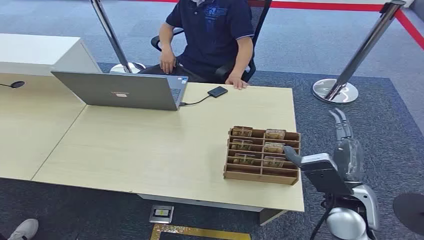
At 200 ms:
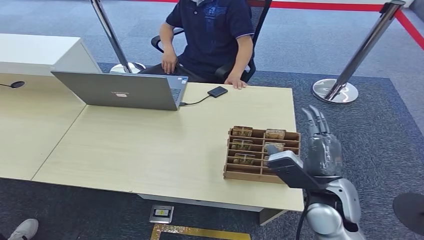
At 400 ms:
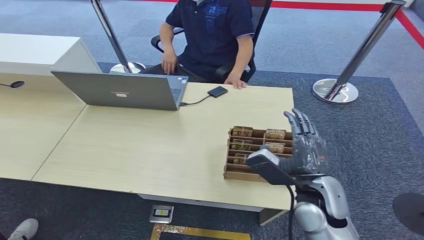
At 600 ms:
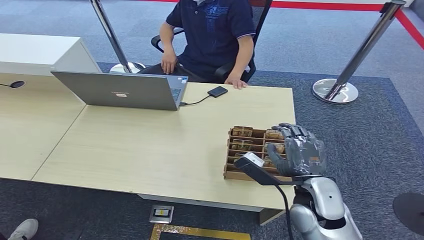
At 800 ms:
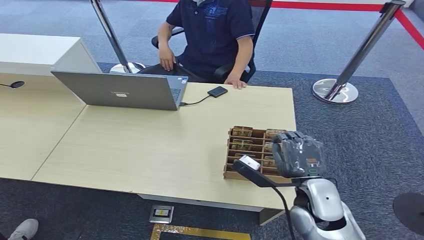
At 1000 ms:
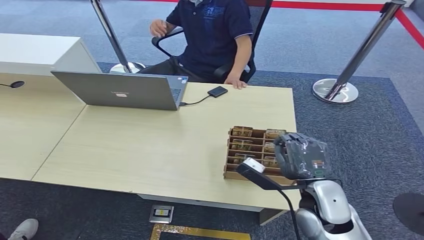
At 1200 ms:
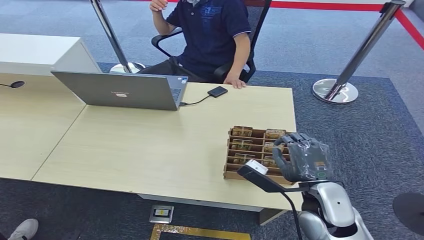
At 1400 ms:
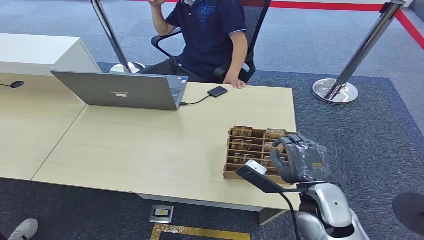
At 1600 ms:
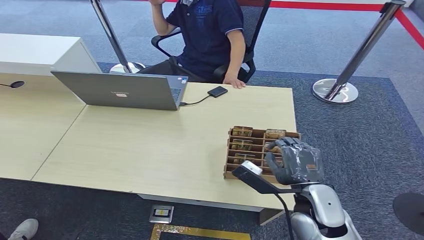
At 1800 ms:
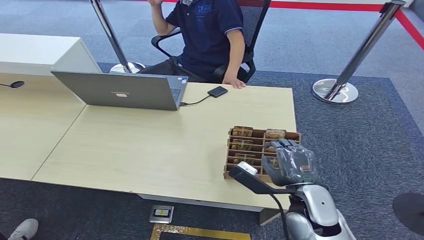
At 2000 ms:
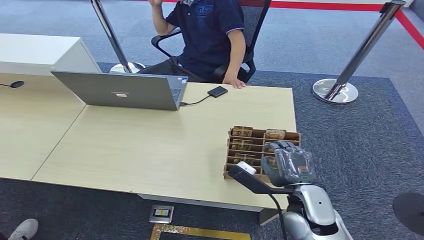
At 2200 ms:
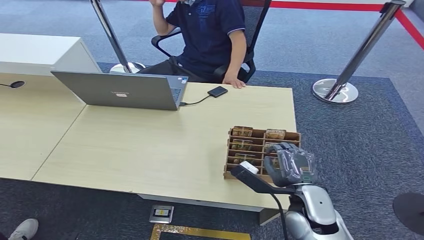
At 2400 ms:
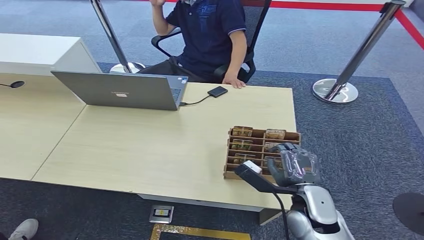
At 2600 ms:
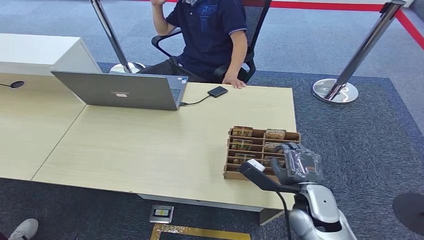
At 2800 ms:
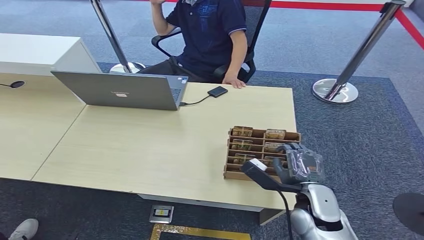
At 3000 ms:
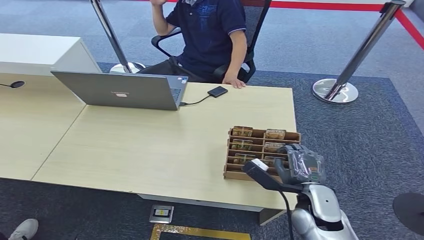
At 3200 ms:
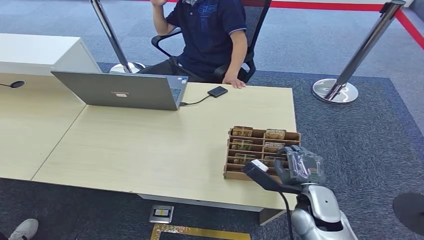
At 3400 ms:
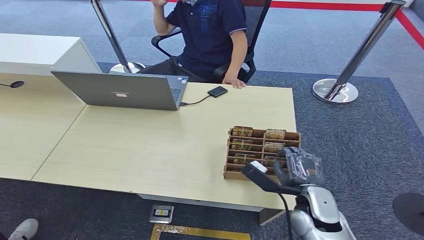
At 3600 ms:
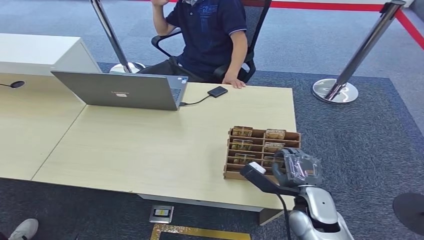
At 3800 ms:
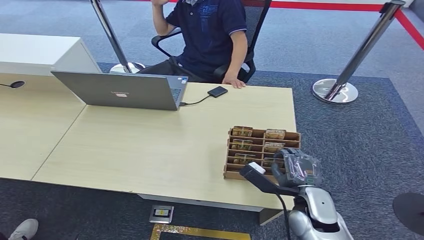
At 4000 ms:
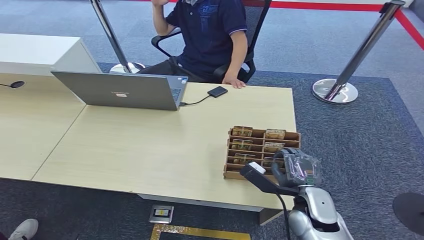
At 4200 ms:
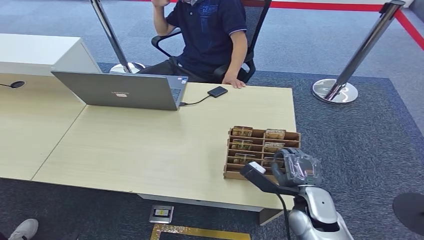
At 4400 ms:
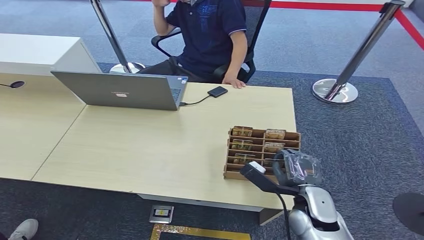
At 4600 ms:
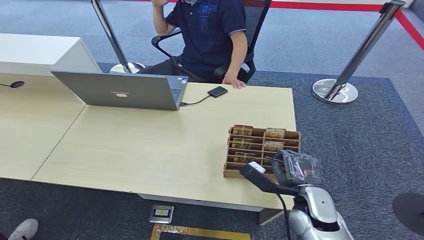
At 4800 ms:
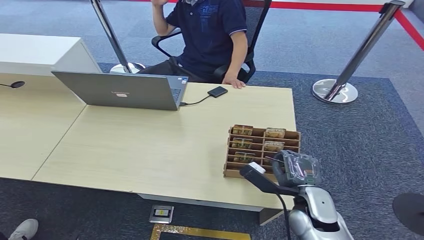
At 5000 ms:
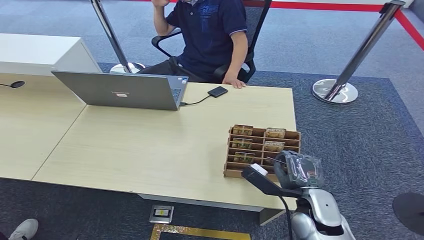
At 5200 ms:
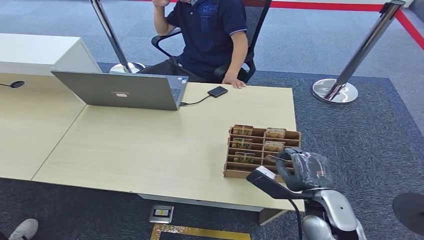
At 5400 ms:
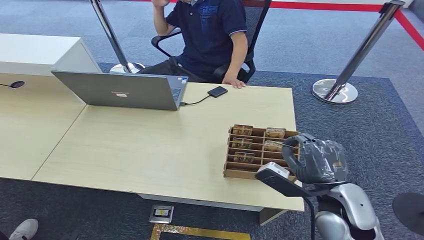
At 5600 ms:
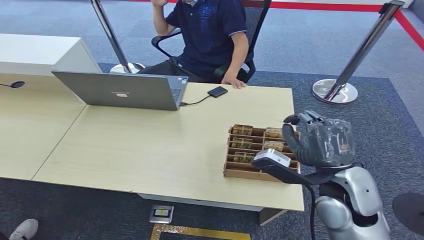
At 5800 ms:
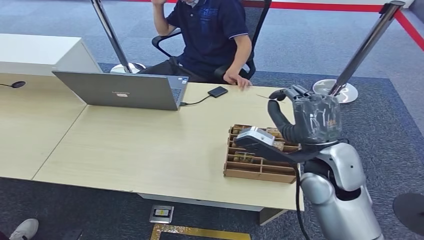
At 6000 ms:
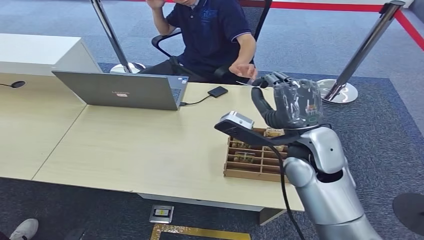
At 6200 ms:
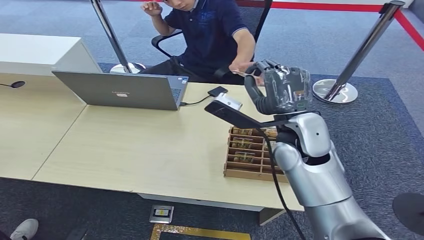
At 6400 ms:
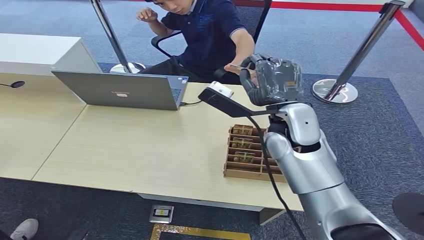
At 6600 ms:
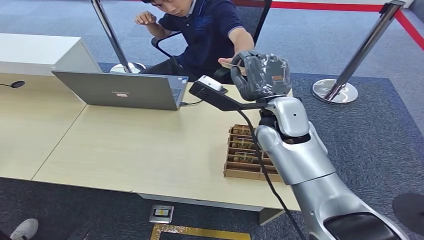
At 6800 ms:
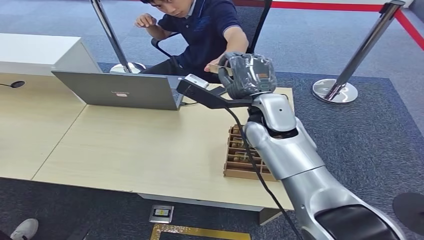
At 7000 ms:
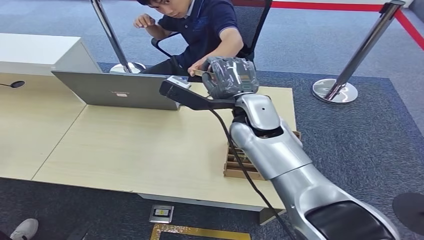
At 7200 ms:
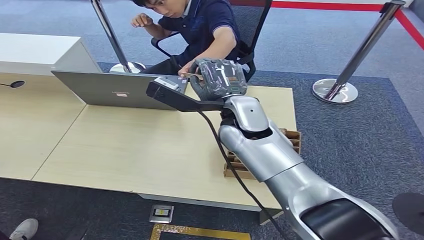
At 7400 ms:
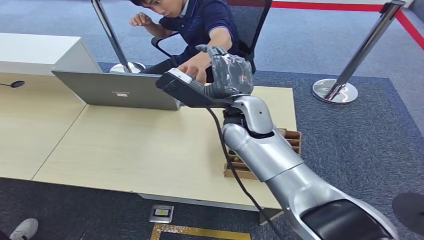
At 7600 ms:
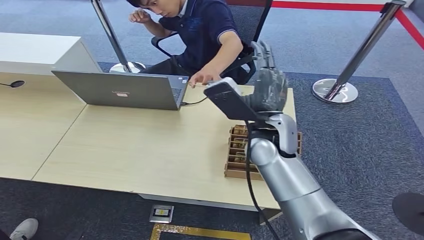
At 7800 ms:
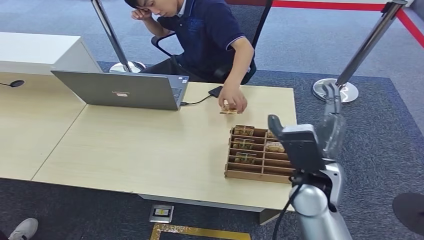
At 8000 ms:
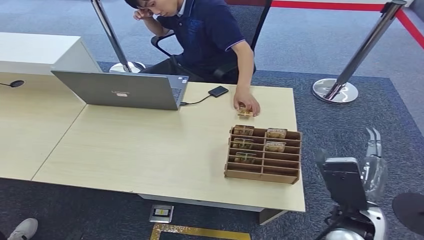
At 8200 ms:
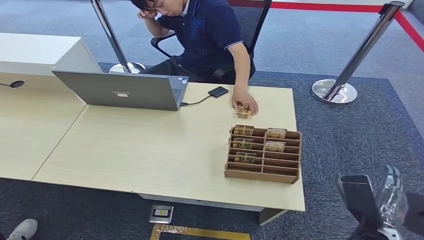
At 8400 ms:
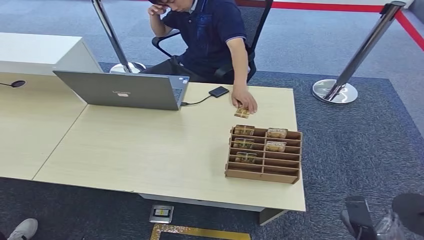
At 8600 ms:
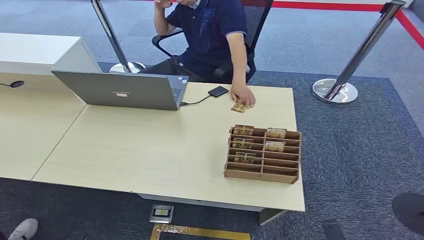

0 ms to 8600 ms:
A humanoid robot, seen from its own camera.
Step, 0 ms to 5400 ms: Pick up the key card from the card box.
Step, 5800 ms to 8400 ms: Hand the key card to the target.
1400 ms to 4400 ms: The hands move only a little.
4400 ms to 5800 ms: The right hand goes some 20 cm upward and forward.
7200 ms to 8600 ms: The right hand goes about 50 cm downward, backward and to the right.
